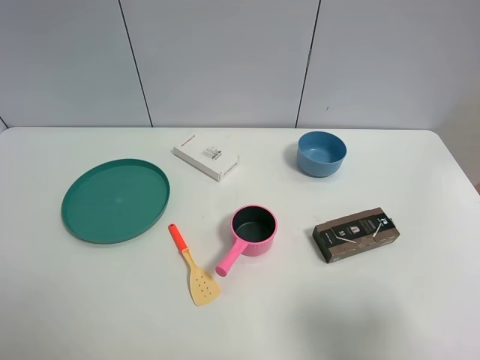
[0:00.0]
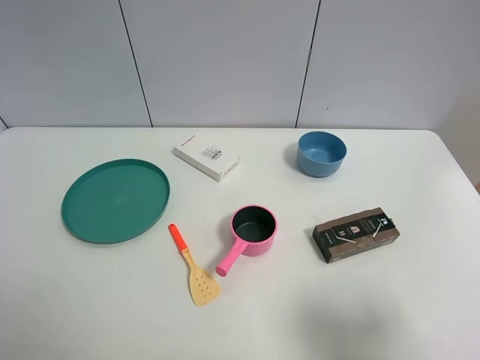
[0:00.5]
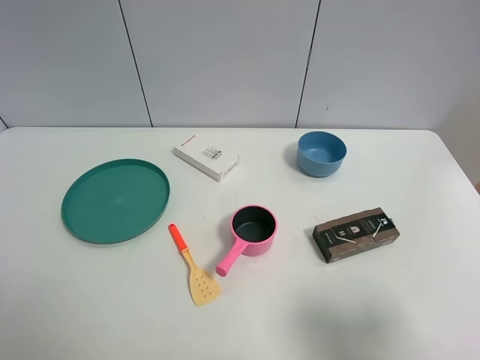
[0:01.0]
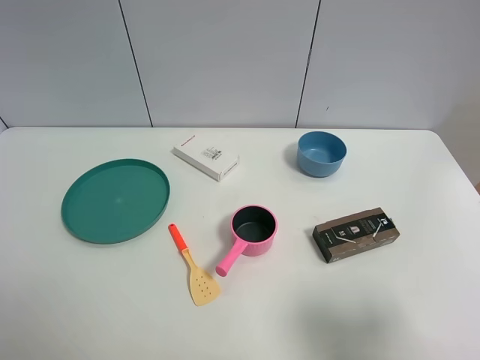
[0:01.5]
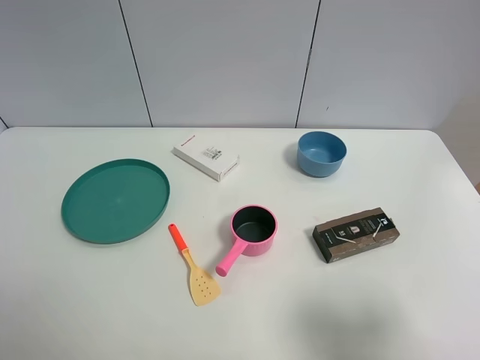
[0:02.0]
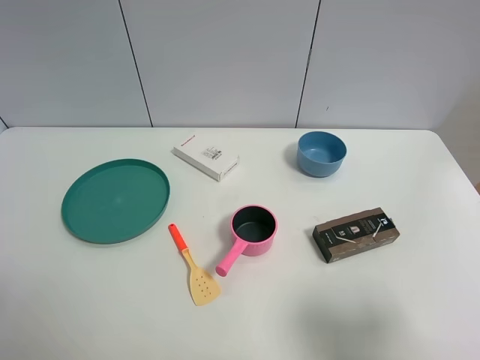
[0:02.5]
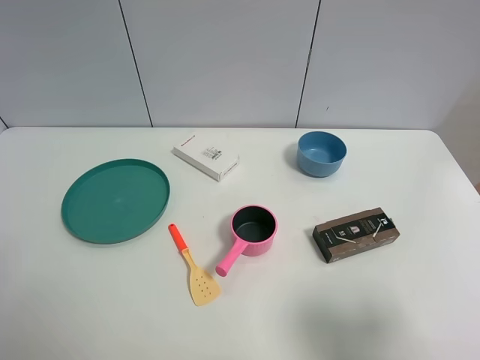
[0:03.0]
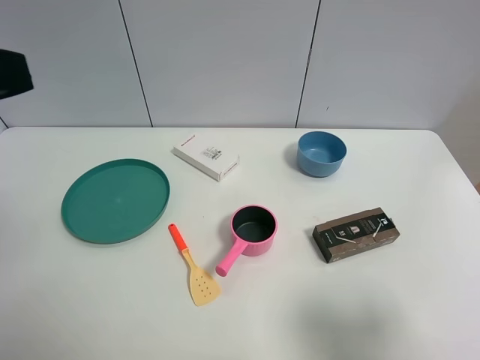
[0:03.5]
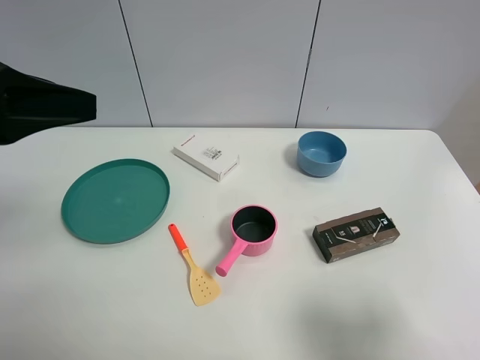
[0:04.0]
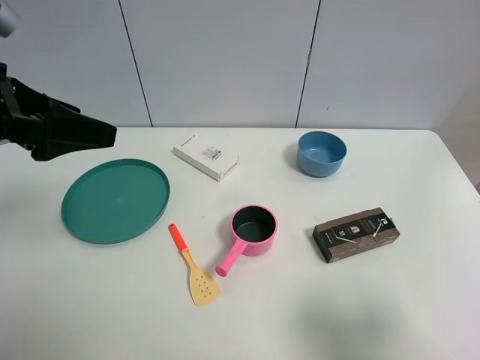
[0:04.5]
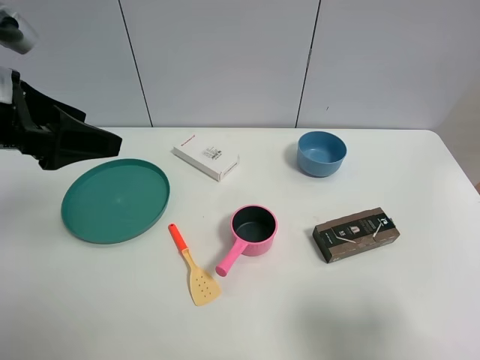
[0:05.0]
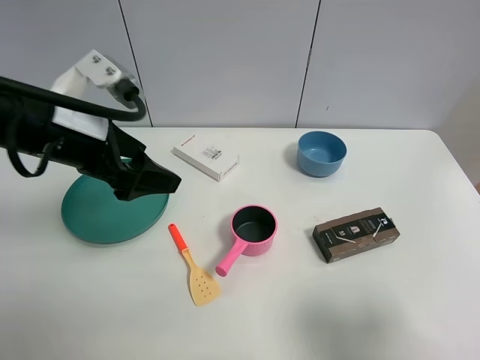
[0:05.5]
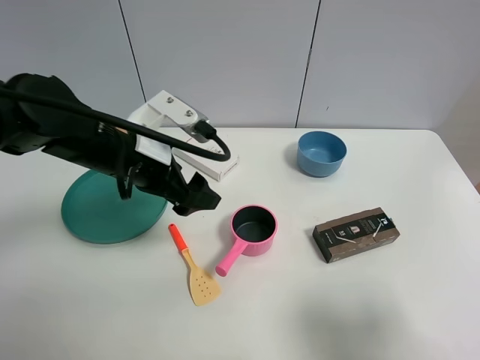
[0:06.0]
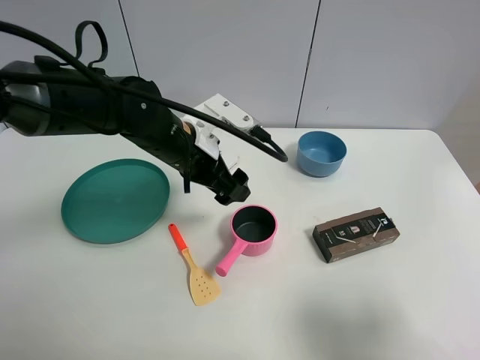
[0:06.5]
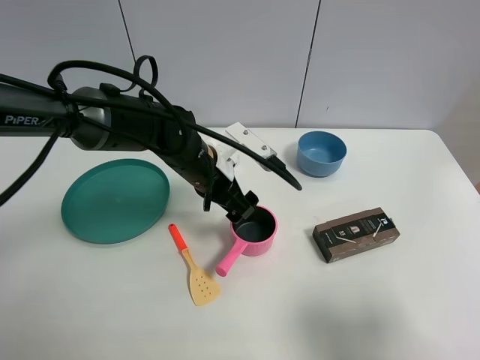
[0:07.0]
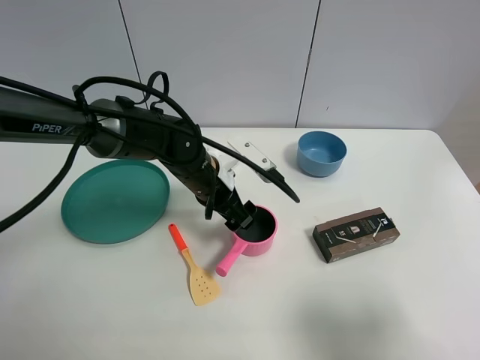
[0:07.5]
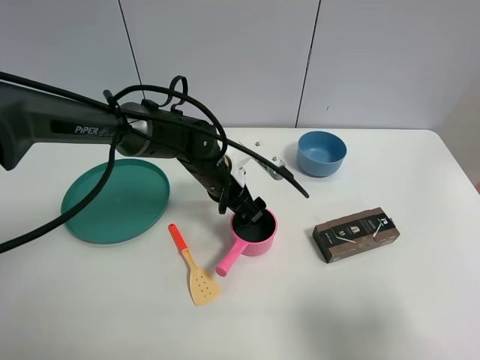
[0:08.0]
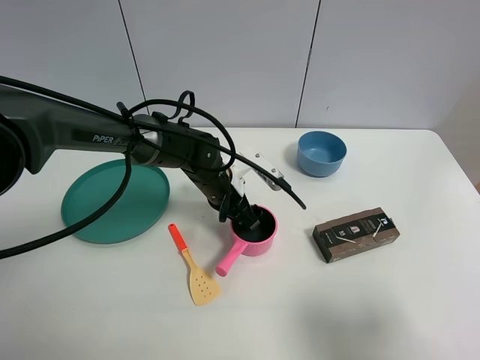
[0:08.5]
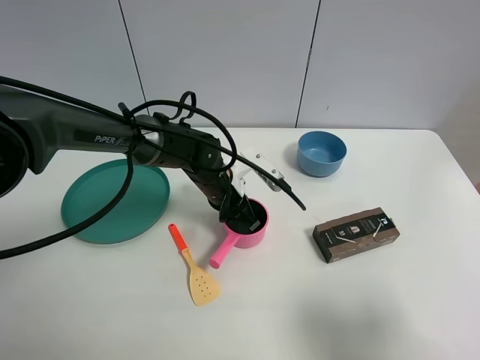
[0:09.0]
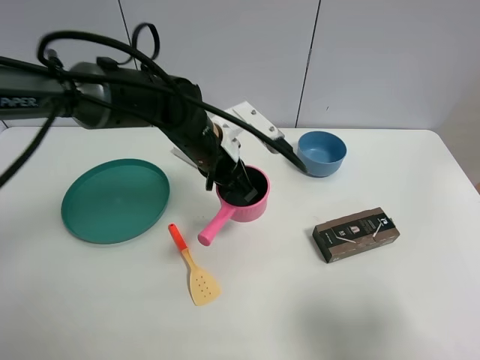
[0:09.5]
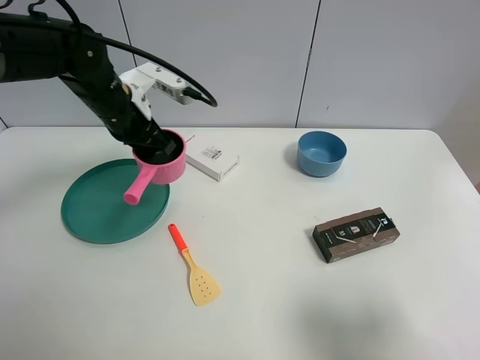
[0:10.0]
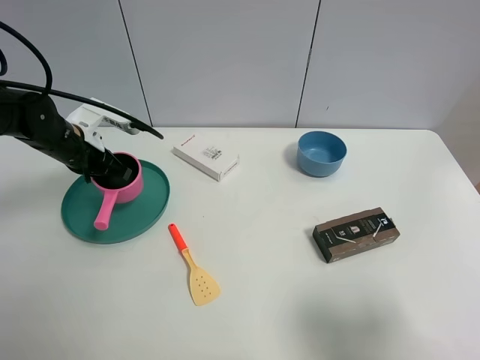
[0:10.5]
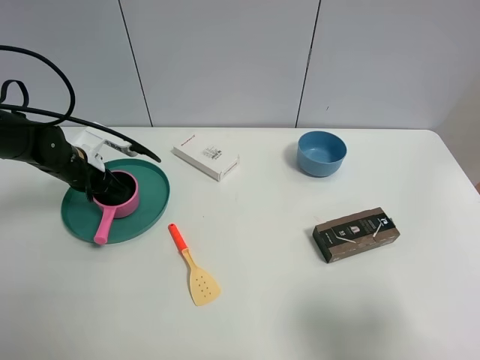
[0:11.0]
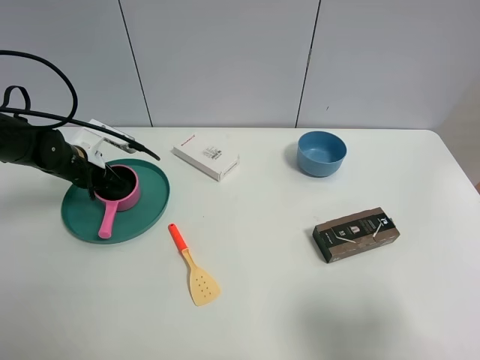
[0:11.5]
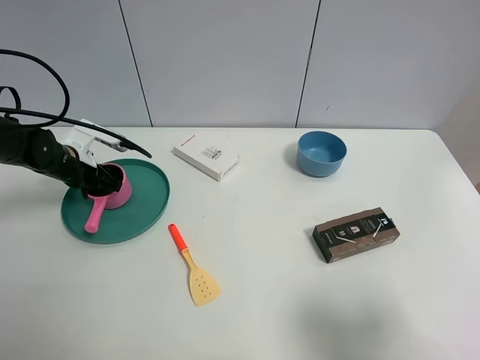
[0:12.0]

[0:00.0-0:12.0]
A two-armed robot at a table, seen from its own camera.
Task of the whole recording: the gripper move the object.
Step, 0:00.0 to 0:08.5: Grasp the pink pot with the left gripper.
Step, 0:09.0 to 0:12.0: Place the pink pot into the green plate with the left gripper.
0:00.0 to 0:02.0: Neither gripper changes place.
0:02.0 to 0:04.0: The left gripper travels forward and upward by about 20 cm.
0:04.0 to 0:06.0: The left gripper is displaced downward, to the right and forward by roughly 20 cm.
0:06.0 to 0:08.0: The left gripper is displaced downward, to the right and forward by some 15 cm.
0:08.0 to 0:10.0: The left gripper travels to the left and upward by roughly 20 cm, and closes its fingers.
0:10.0 to 0:12.0: The left gripper moves downward and to the left, roughly 15 cm, and opens its fingers.

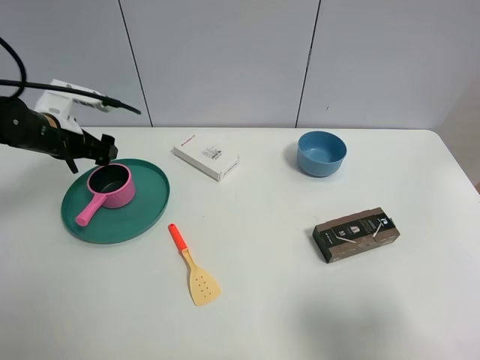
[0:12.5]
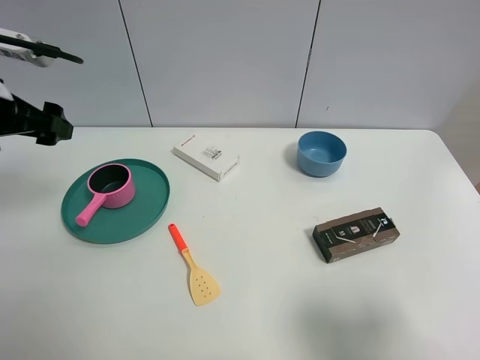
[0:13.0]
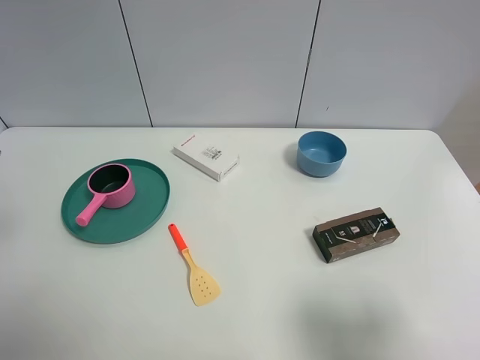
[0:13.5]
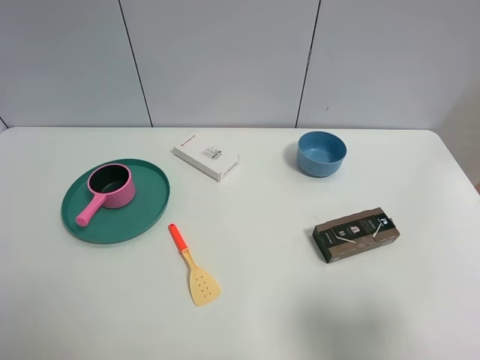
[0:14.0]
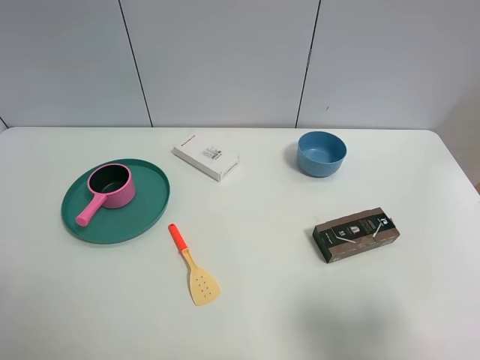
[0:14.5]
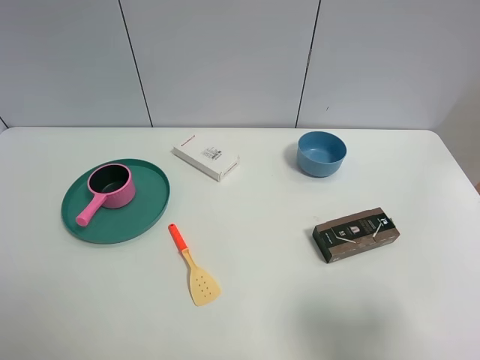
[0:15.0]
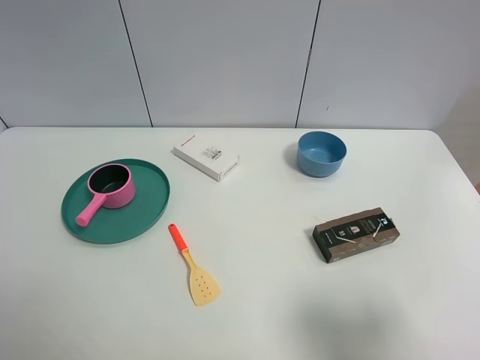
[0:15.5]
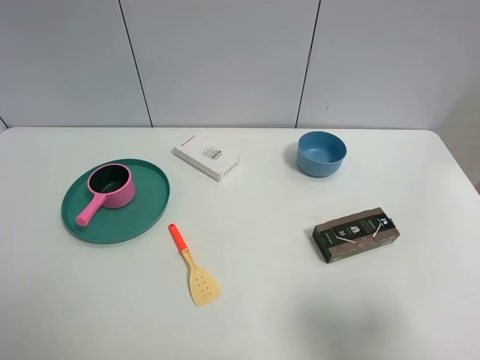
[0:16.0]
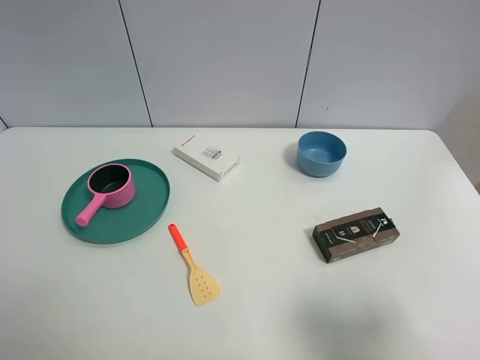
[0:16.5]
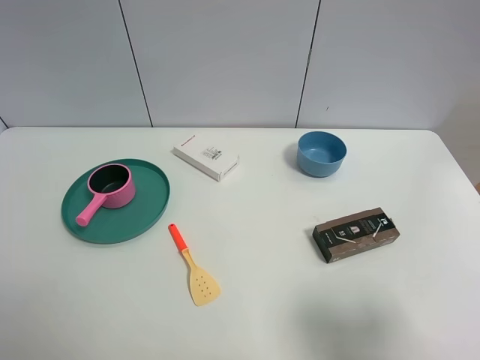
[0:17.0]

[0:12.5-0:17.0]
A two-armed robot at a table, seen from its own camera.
Task of the whole recording: the gripper move the object.
0:12.5 to 0:14.5: The left gripper heads backward, covering approximately 35 cm.

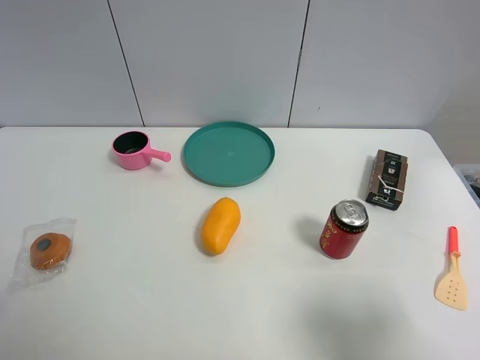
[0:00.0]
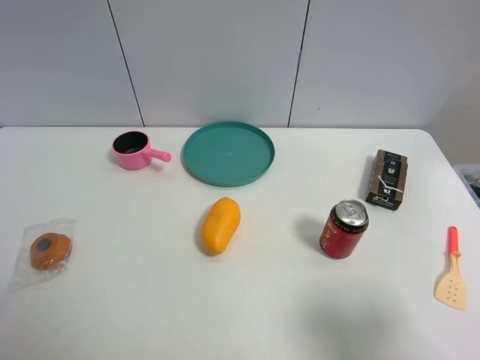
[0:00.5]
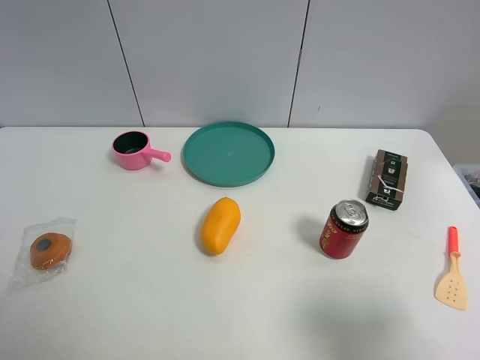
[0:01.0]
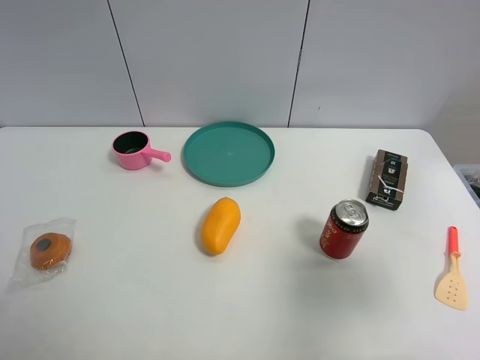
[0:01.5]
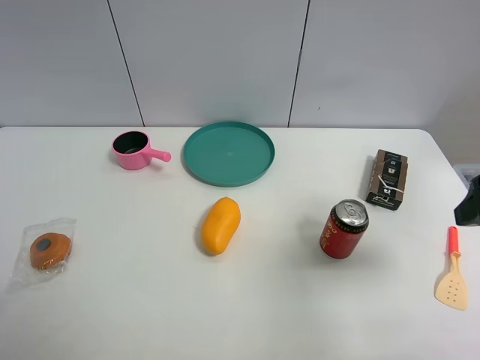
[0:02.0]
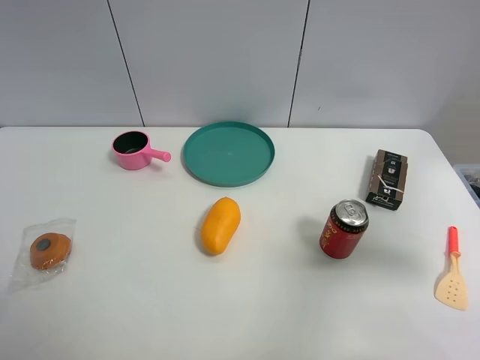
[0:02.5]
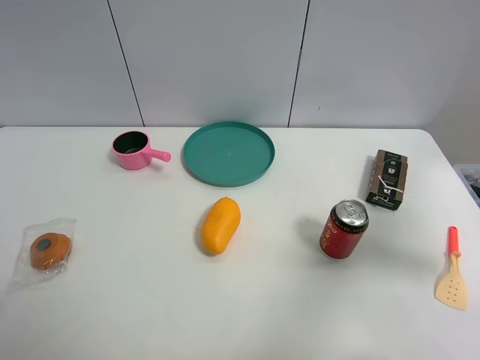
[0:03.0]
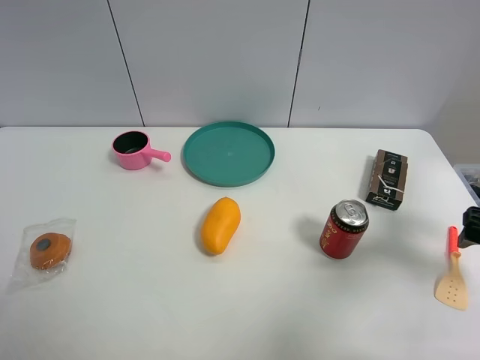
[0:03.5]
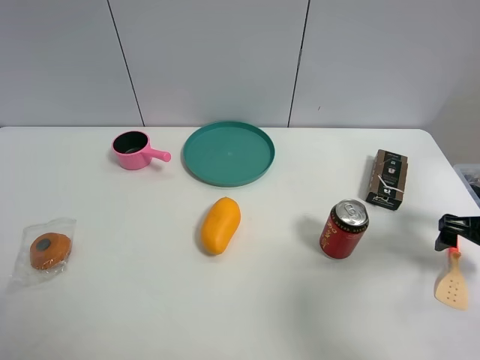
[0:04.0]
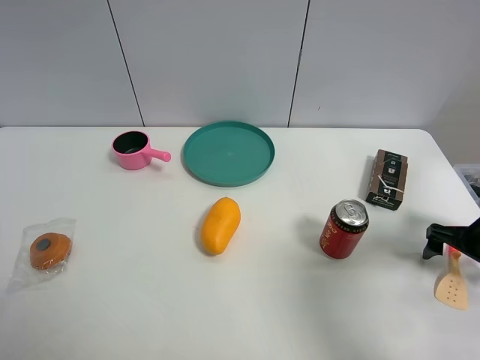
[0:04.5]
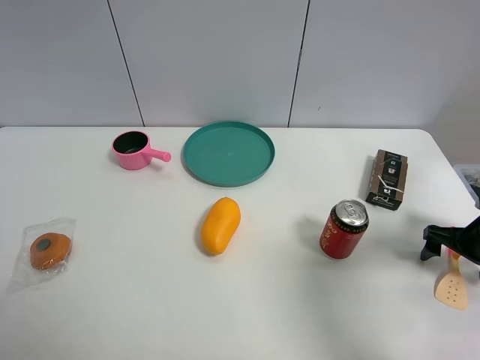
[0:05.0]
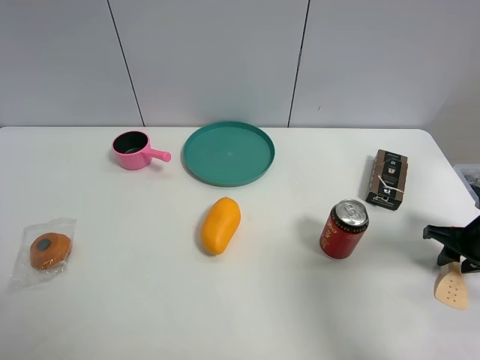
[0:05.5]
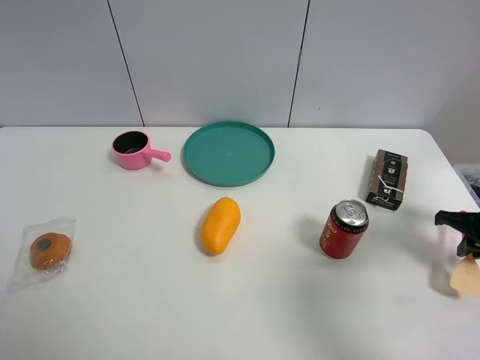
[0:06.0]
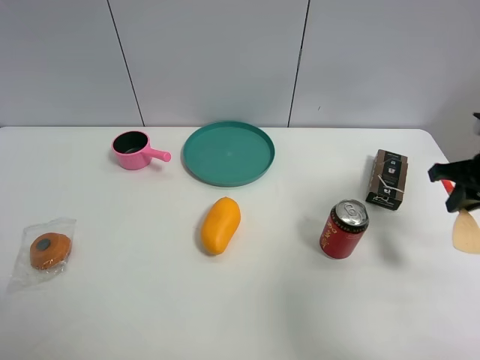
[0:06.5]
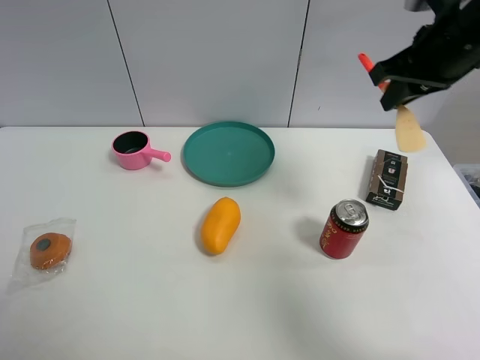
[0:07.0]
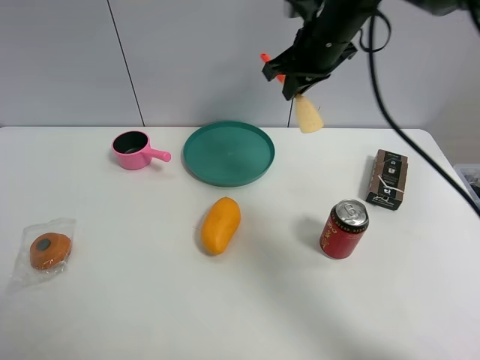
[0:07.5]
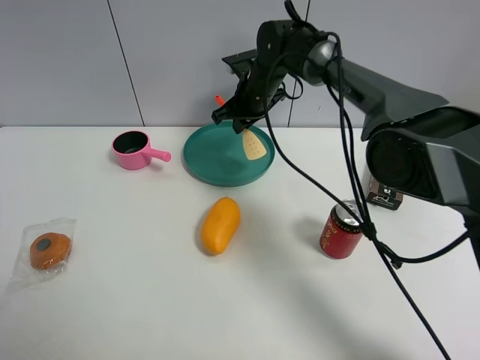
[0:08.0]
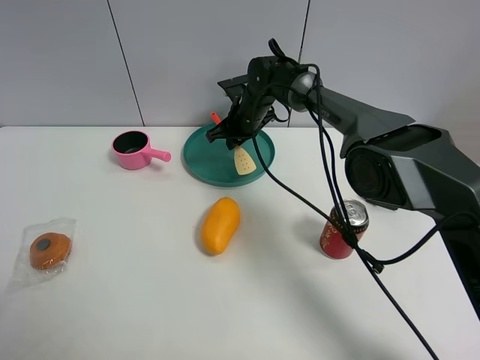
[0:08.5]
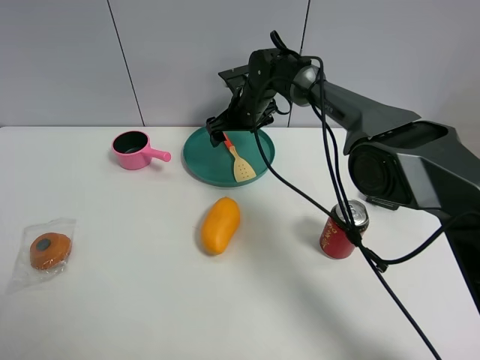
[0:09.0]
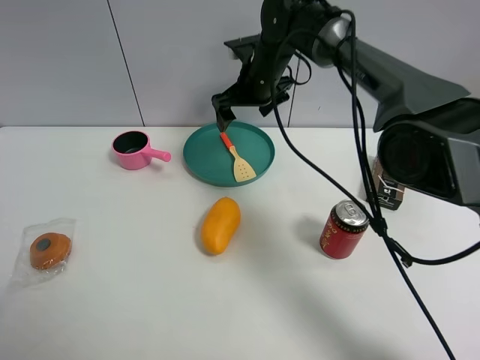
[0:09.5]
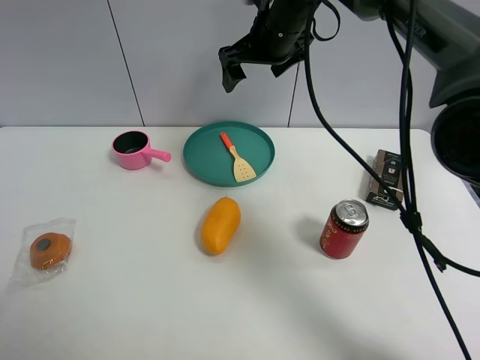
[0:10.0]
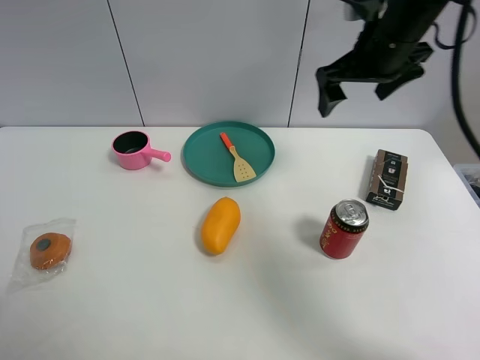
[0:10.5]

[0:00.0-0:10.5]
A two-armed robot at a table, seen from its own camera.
Task of the whole recording: the gripper move the object.
Step, 0:00.0 to 0:05.5: Grasp the cooking shovel with the right gripper.
Step, 0:06.0 to 0:08.5: Place the cooking shovel into the green bowl with the right gripper.
0:00.0 to 0:02.0: The right gripper shifts roughly 15 cm forward.
0:02.0 to 0:04.0: The right gripper travels downward, to the right and forward by some 20 cm.
0:04.0 to 0:06.5: The right gripper is displaced upward and to the left by about 10 cm, and closes its fingers.
0:06.5 to 0:08.5: The right gripper goes approximately 40 cm to the left and forward.
0:08.5 to 0:10.5: The right gripper shifts approximately 30 cm upward, to the right and backward, and opens.
